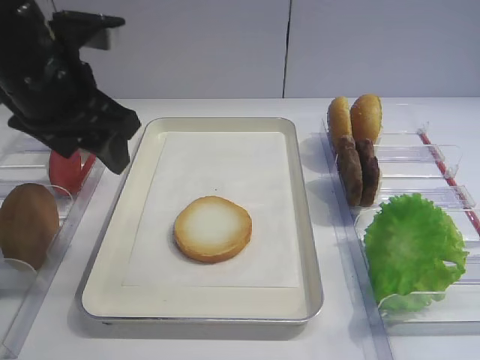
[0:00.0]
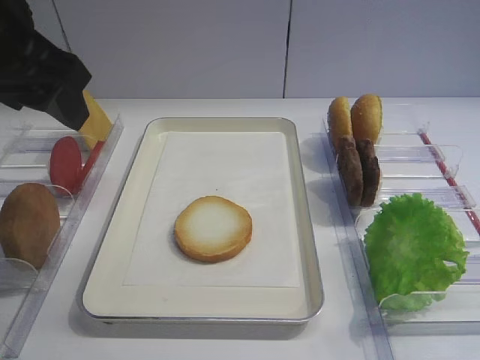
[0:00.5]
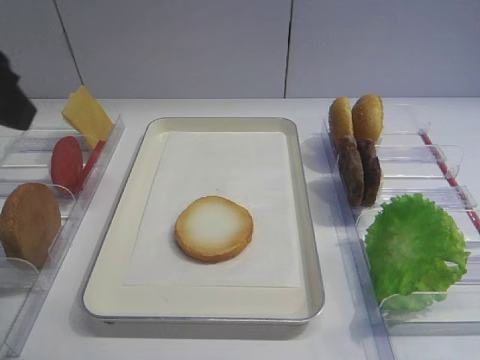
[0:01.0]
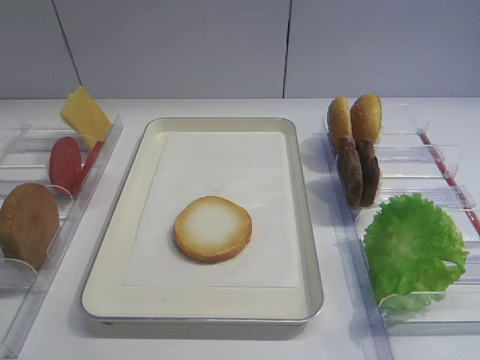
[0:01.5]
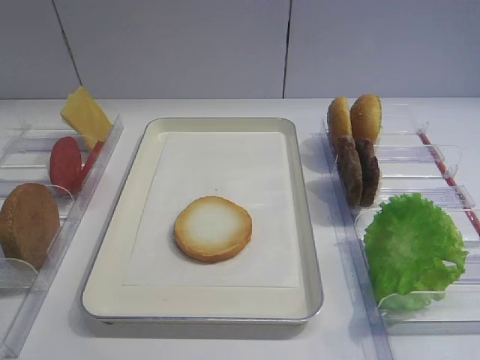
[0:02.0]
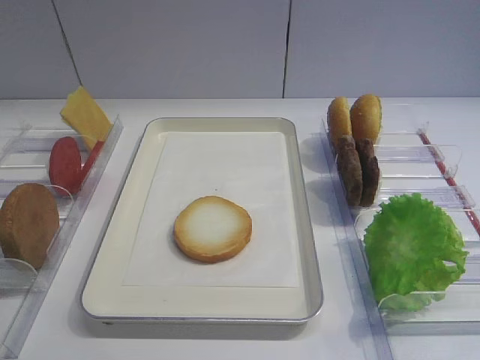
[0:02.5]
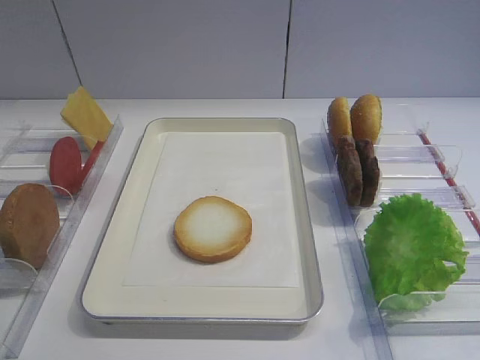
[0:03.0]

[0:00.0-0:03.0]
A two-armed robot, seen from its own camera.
0:00.0 to 0:01.5: The left gripper travels backward and to the left by about 25 cm.
